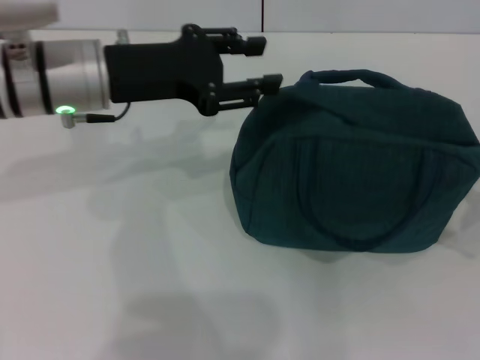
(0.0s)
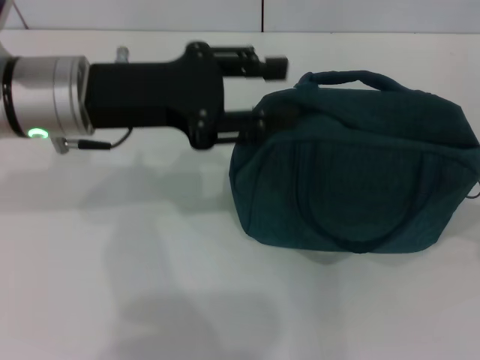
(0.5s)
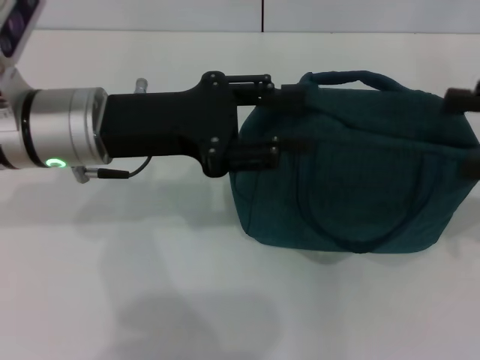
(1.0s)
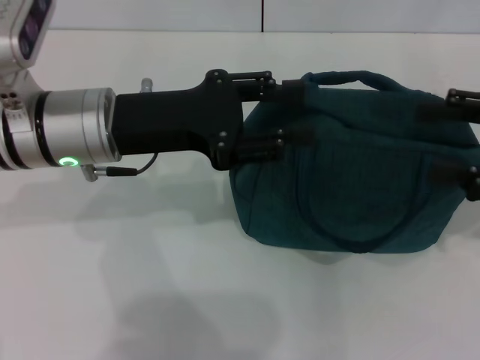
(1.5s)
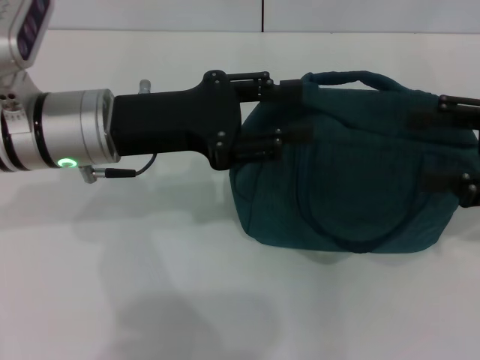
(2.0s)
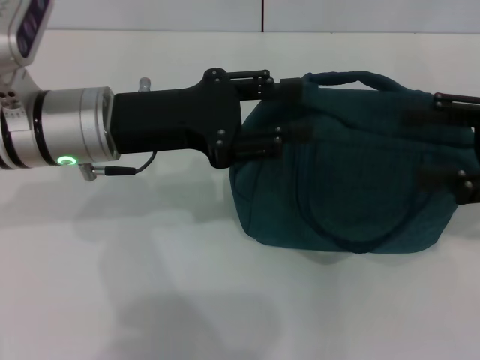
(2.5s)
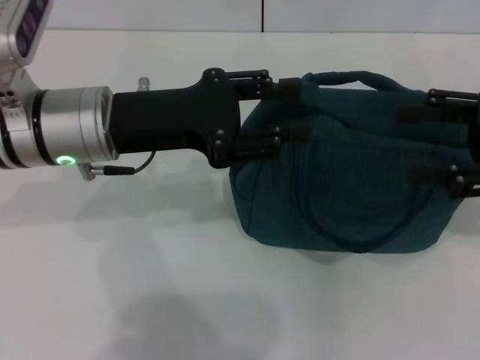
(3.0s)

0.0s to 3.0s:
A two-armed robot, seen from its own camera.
0.0s to 1.5s: The right gripper shifts approximately 10 cm to the left, forward and upward.
1.5s to 3.0s: The two grippers keep their place.
